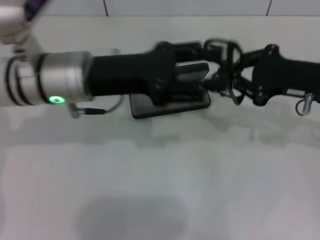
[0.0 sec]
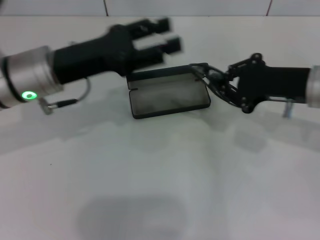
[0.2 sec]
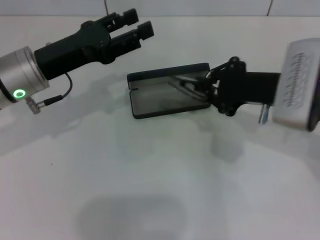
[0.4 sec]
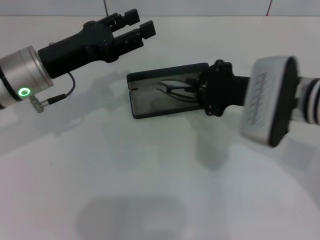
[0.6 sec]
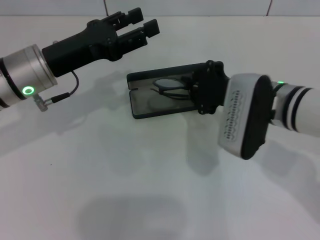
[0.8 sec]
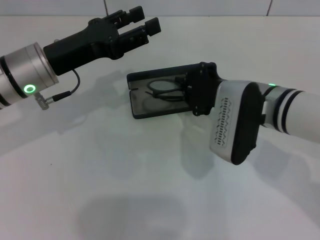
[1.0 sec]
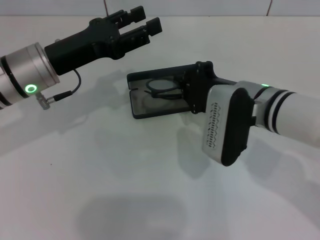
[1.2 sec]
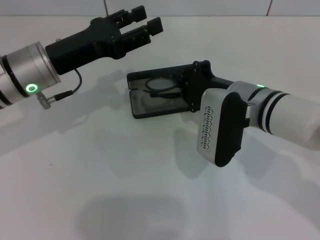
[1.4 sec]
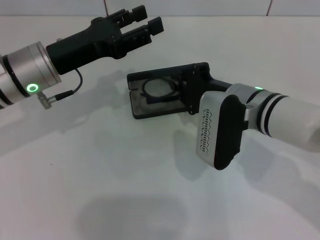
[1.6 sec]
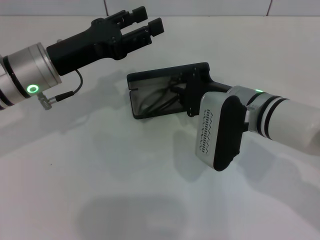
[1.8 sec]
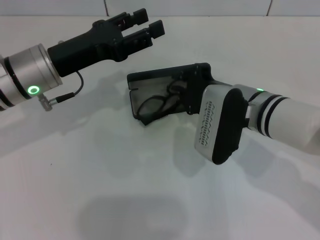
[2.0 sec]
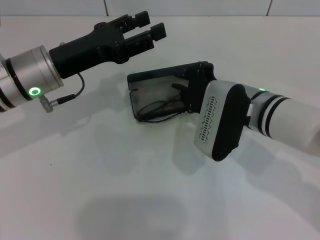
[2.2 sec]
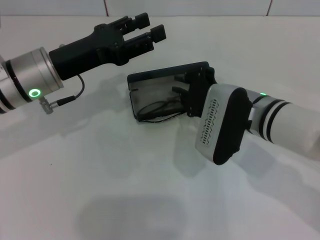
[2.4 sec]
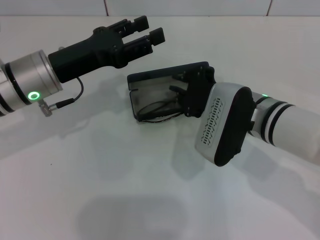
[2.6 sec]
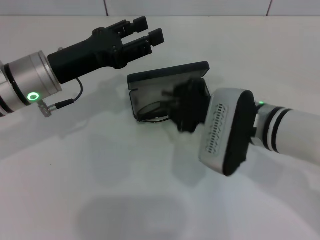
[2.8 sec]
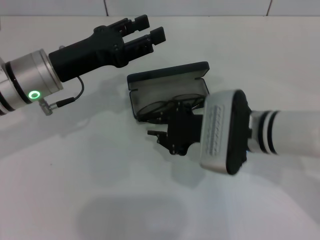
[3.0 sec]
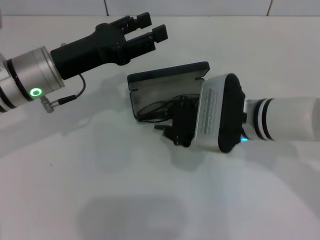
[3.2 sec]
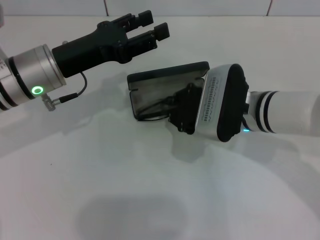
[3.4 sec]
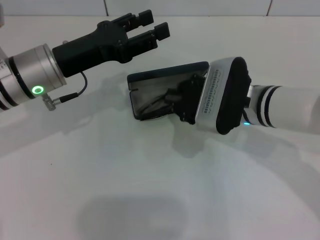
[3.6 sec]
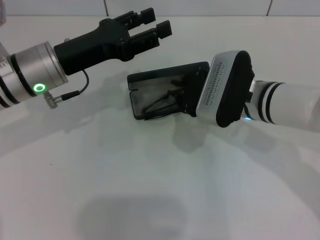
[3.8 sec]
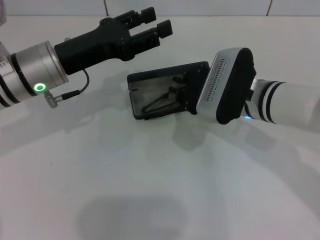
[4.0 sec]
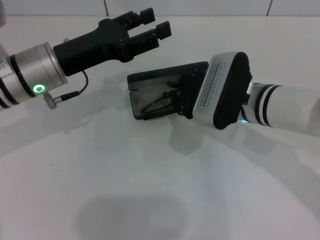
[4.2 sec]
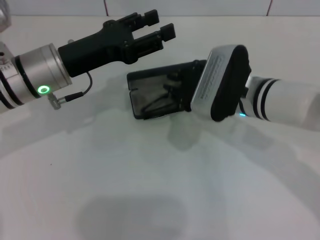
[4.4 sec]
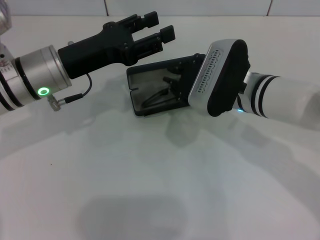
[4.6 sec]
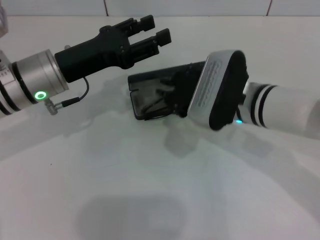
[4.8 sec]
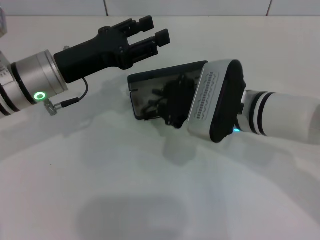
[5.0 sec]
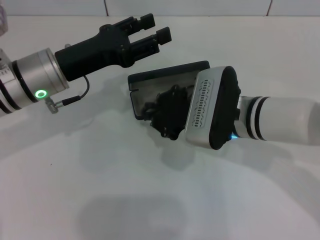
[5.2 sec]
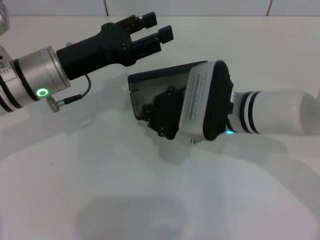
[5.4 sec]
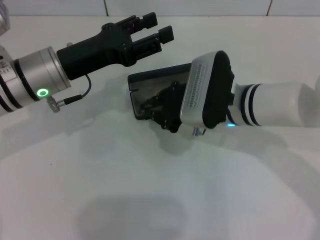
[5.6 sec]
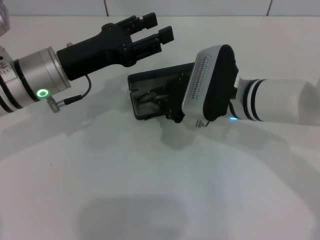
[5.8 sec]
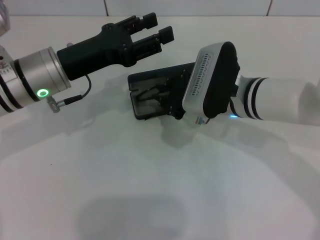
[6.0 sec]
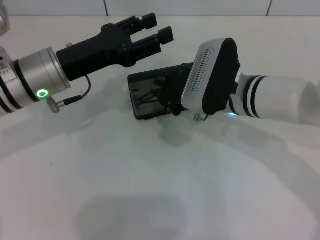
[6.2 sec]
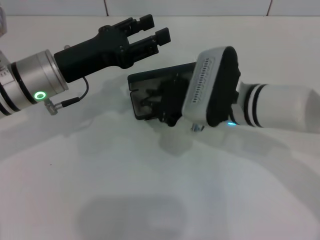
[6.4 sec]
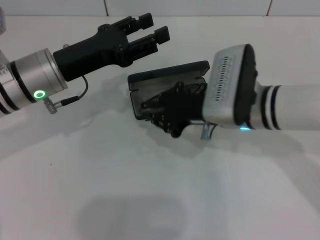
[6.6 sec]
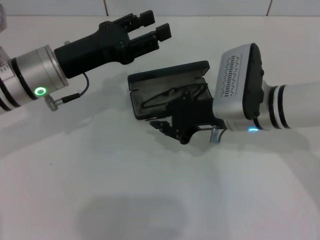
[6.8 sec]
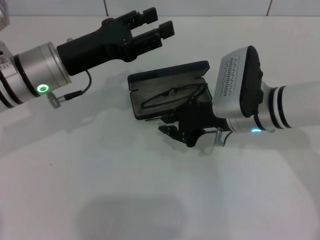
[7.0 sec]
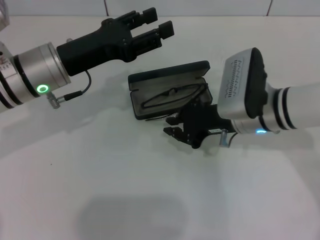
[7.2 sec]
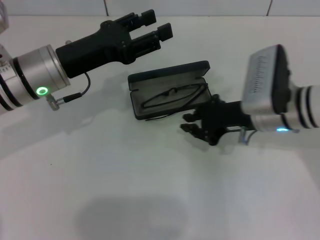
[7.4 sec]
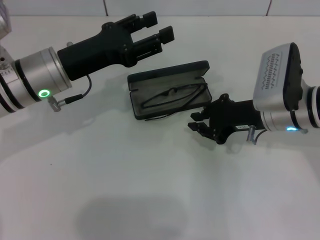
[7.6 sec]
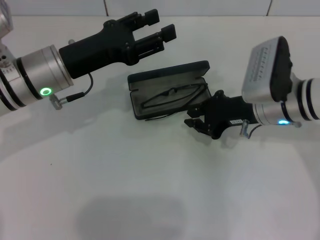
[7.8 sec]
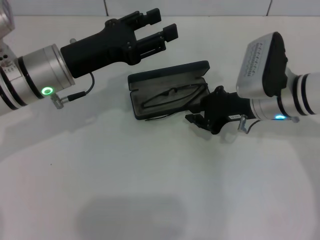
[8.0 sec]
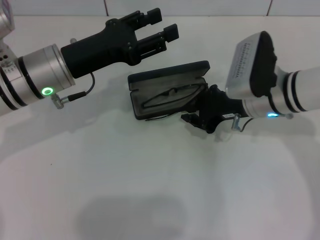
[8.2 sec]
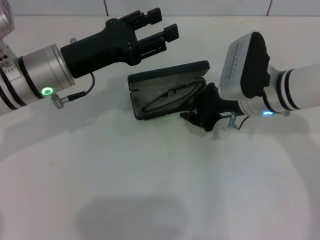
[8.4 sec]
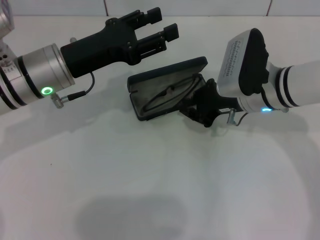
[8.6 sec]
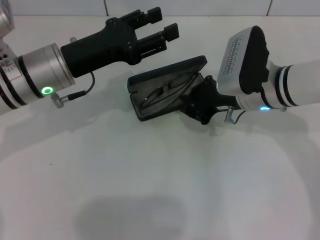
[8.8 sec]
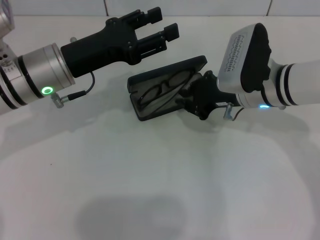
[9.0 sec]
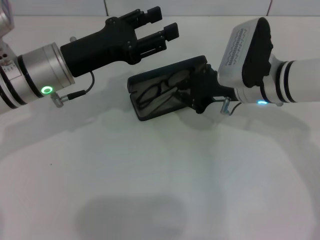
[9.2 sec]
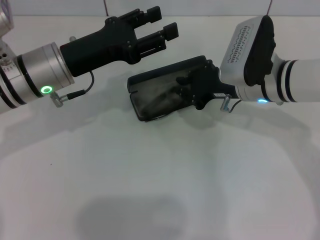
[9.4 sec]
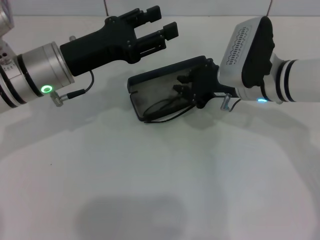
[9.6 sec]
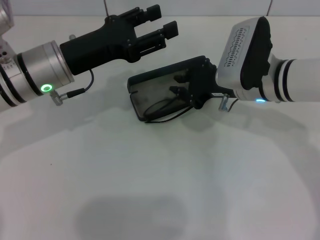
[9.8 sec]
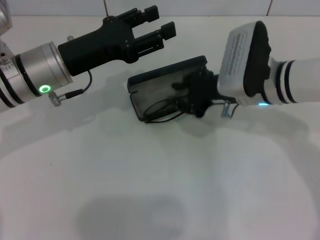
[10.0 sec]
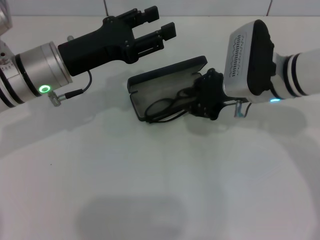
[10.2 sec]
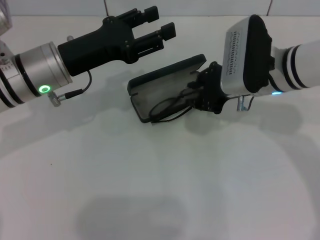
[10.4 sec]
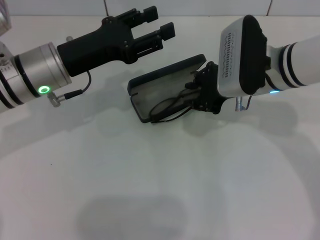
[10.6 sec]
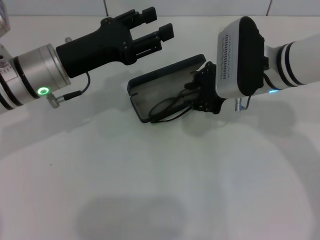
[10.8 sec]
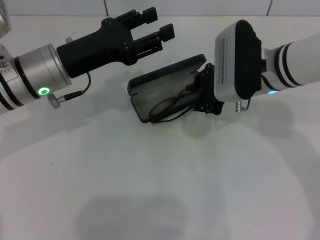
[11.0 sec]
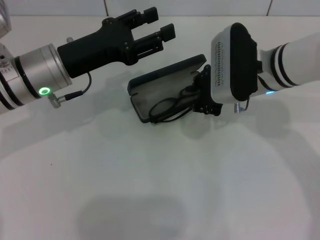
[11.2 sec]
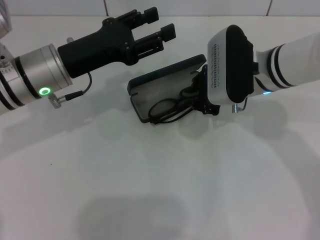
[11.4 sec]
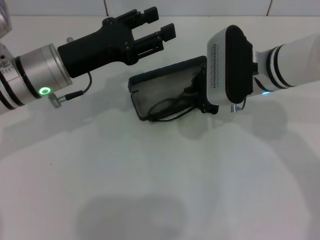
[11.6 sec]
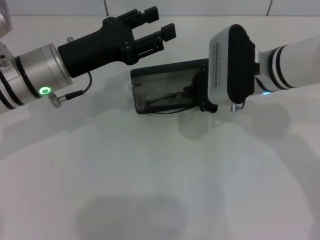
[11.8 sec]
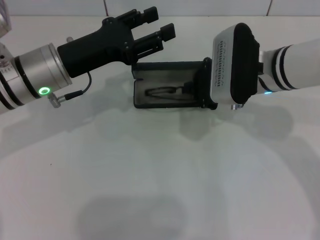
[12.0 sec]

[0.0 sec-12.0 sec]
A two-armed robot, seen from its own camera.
0.0 sec to 1.6 sec: The right gripper is displaced to the left by about 15 cm. The left gripper shifts roughly 5 cm to the left.
4.4 sec to 6.0 sec: The grippers move only a little.
6.0 sec to 7.6 sec: The right gripper is displaced to the right by some 10 cm.
7.6 sec to 9.0 sec: The grippers make only small movements.
9.0 sec to 10.4 sec: The grippers move only a little.
10.4 sec to 12.0 sec: The right gripper closes up.

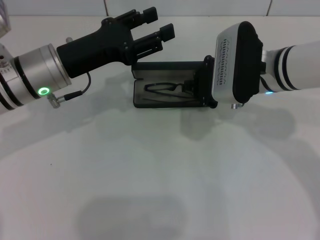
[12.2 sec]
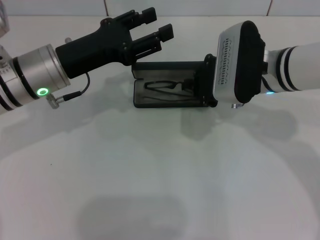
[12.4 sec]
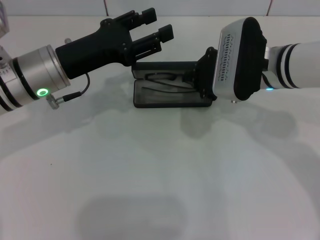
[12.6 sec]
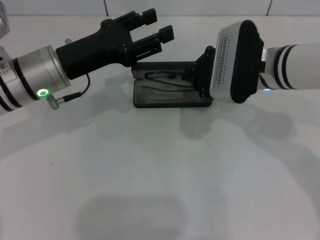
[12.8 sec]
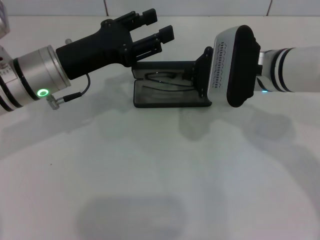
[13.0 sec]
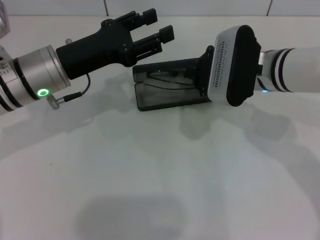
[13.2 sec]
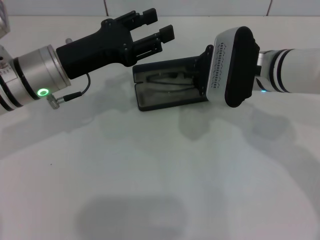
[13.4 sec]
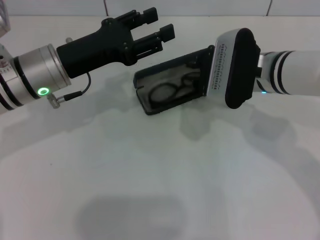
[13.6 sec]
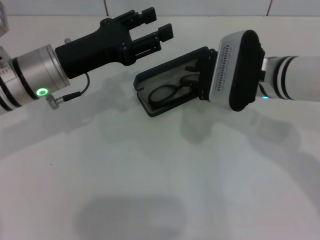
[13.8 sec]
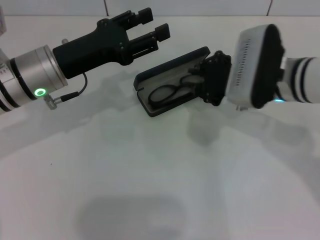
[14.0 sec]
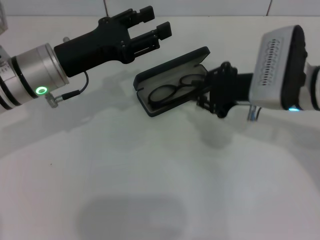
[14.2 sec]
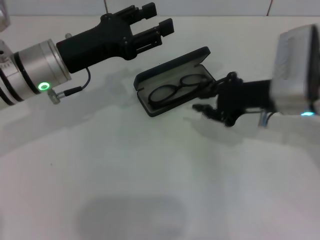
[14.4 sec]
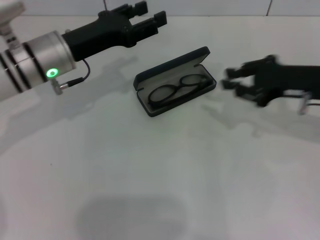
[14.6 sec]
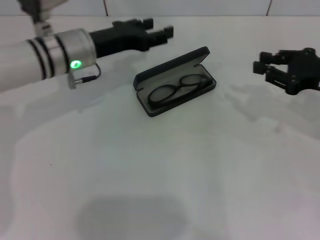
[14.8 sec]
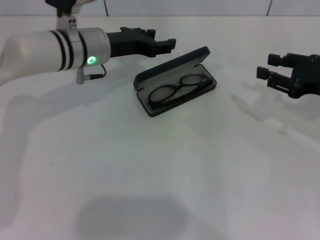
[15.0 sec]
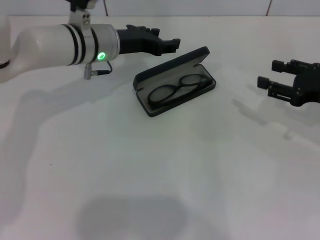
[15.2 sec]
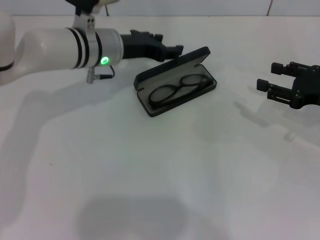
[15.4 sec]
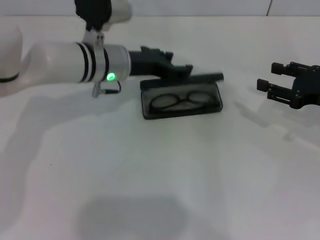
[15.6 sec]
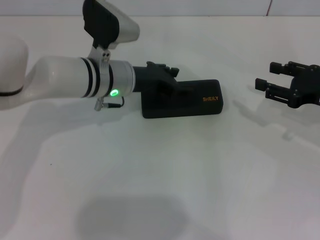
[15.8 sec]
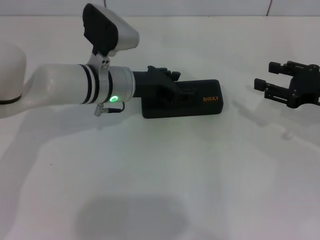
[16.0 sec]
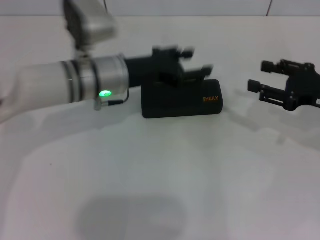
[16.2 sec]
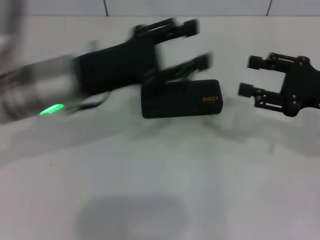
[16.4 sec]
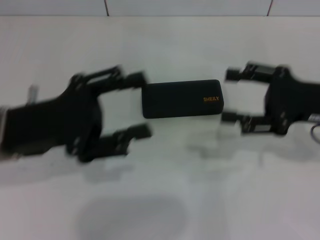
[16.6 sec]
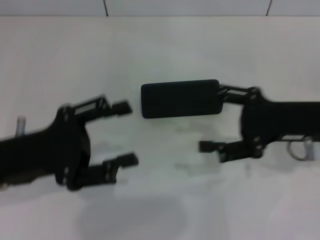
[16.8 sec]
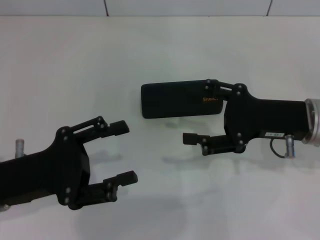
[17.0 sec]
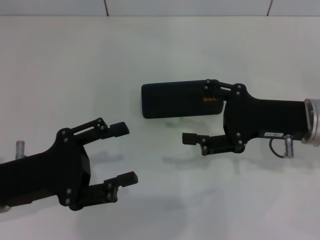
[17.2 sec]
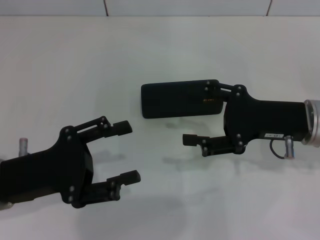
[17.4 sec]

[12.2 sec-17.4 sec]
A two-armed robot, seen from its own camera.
Step, 14.0 sec to 15.8 sec: Close the glasses case with your left hand.
12.2 sec to 14.0 sec: The grippers stay close to where they were, moving slightly.
14.0 sec to 15.6 sec: The left gripper heads to the right and forward, covering approximately 10 cm, while the right gripper travels to the right by some 15 cm, and opens its fingers.
15.6 sec to 17.4 sec: The left gripper goes approximately 25 cm backward and to the left. The right gripper is displaced to the left by some 10 cm.

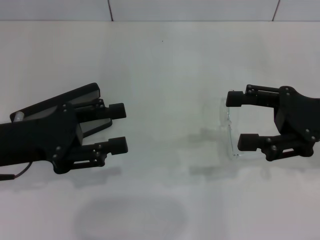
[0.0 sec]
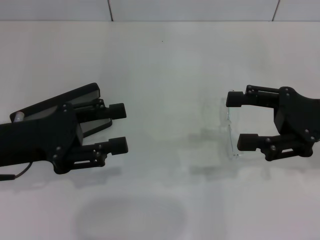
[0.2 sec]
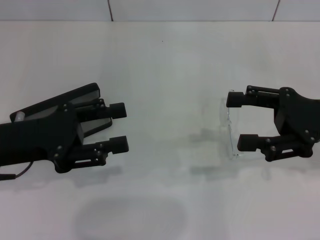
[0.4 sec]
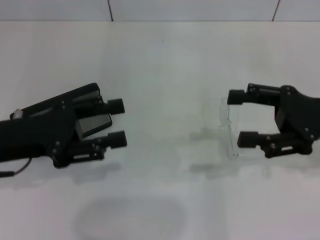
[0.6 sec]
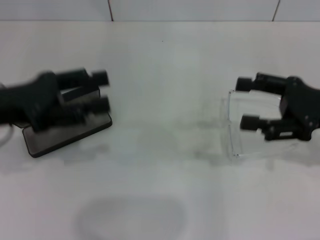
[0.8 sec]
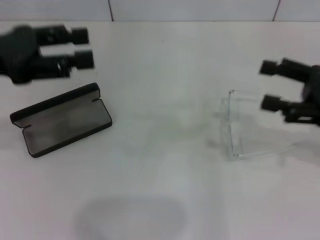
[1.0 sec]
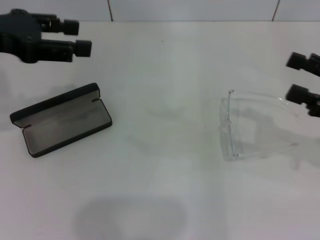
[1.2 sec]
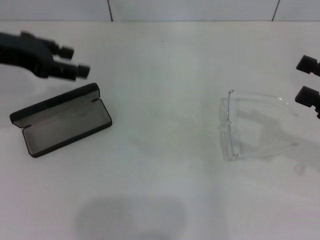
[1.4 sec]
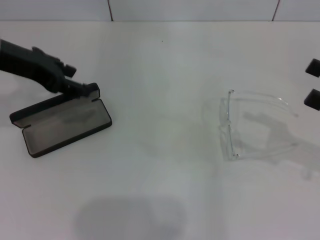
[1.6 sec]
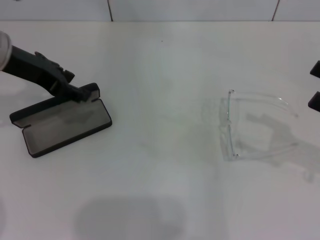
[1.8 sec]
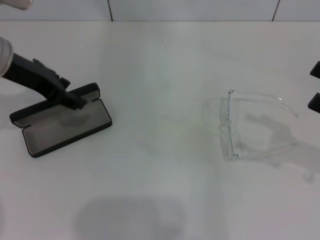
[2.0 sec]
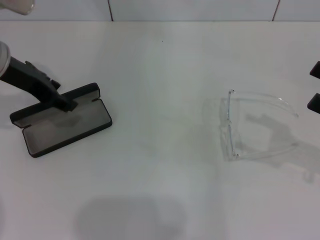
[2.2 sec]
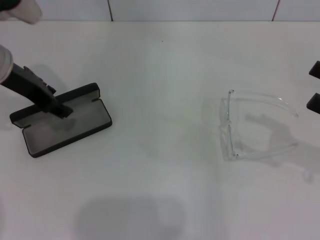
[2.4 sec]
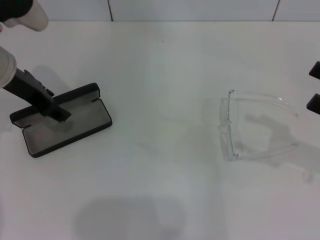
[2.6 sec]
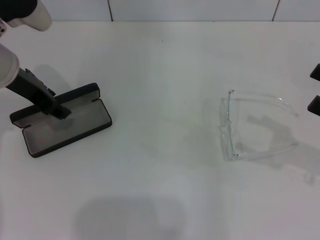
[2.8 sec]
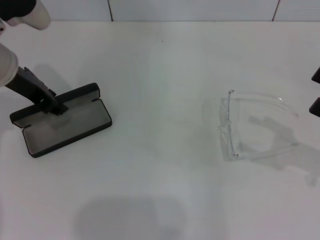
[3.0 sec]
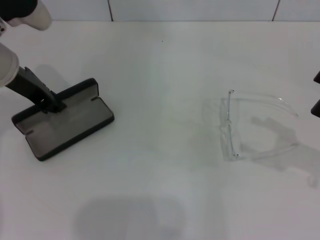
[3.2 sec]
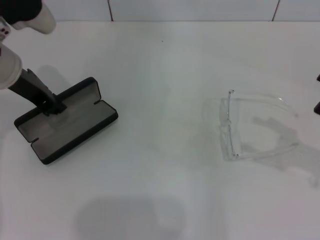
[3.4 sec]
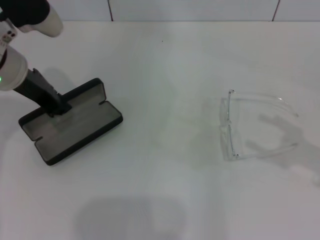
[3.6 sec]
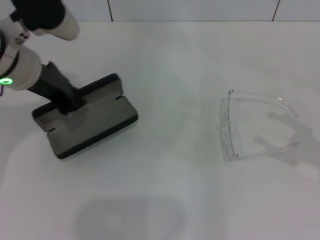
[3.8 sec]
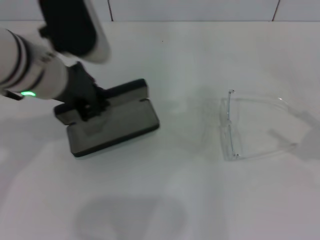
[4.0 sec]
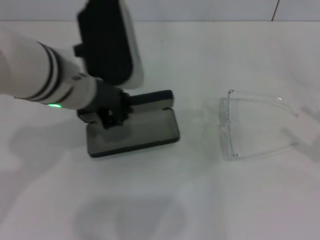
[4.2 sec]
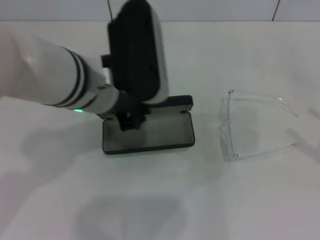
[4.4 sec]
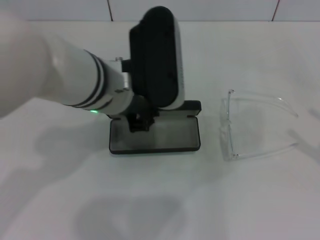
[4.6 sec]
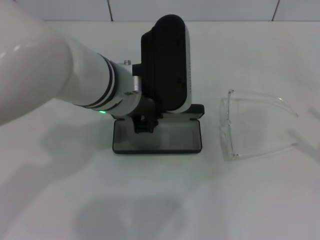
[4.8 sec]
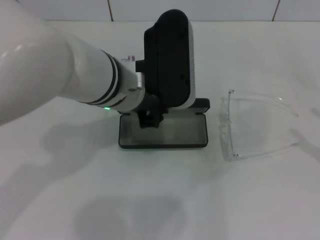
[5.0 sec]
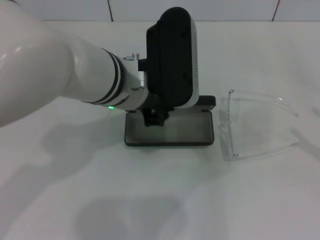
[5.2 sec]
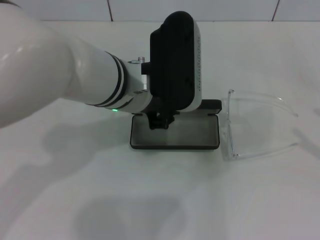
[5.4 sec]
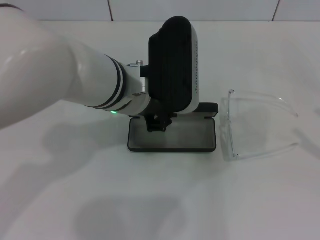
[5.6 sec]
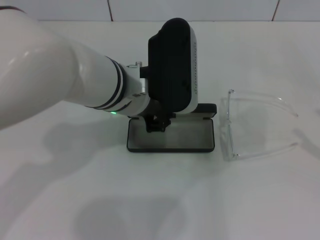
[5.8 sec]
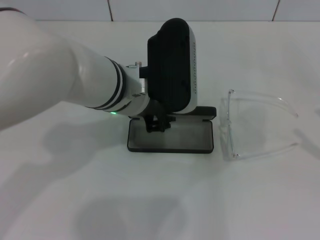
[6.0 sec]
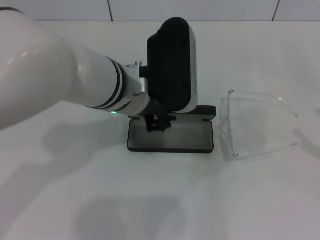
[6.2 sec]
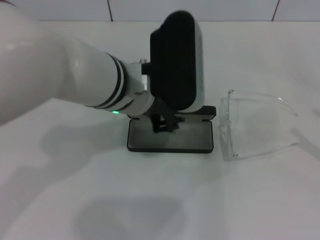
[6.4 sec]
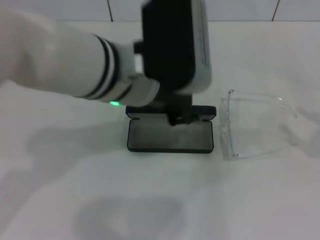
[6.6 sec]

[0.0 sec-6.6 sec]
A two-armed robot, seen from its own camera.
Step, 0.0 sec to 2.4 sec: Grab the glasses case with your left hand.
Step, 2.6 sec to 6.0 sec: Place the glasses case in the center of the table with your left hand.
0.0 sec to 1.6 sec: The left gripper travels forward and upward by approximately 15 cm. The right gripper shifts roughly 5 cm to the right.
3.2 sec to 5.0 sec: The left gripper goes some 15 cm to the right, and closes its fingers. Meanwhile the right gripper ends up approximately 5 cm from where it was.
5.0 sec to 6.6 sec: The grippers move only a little.
